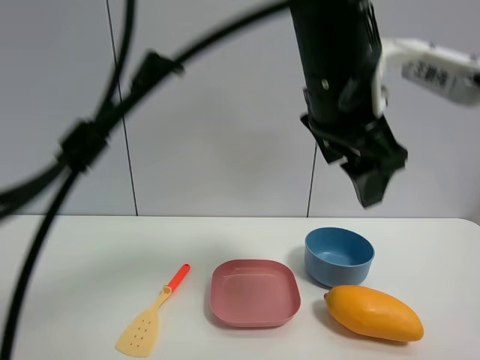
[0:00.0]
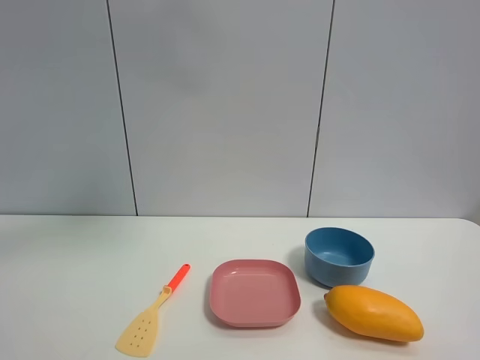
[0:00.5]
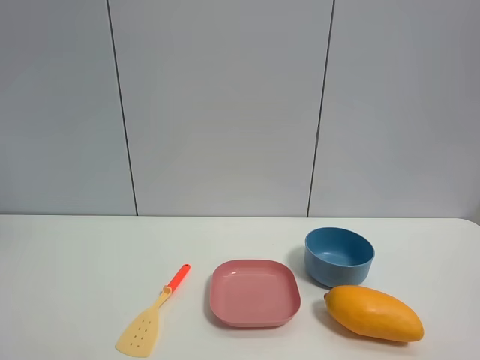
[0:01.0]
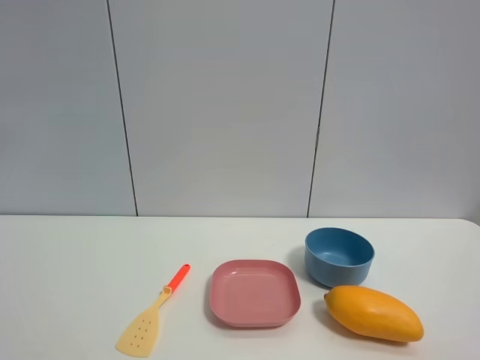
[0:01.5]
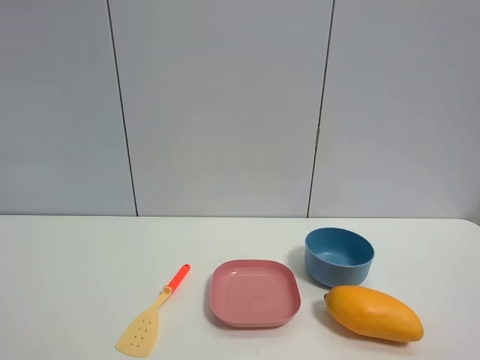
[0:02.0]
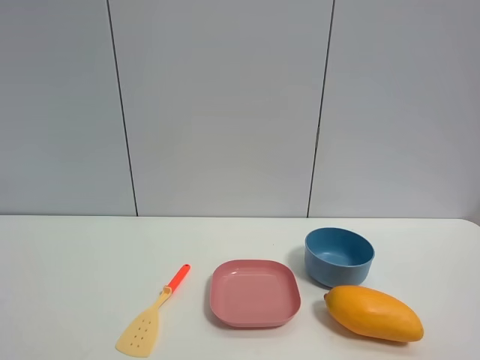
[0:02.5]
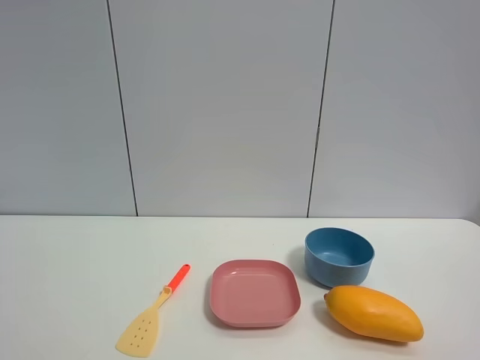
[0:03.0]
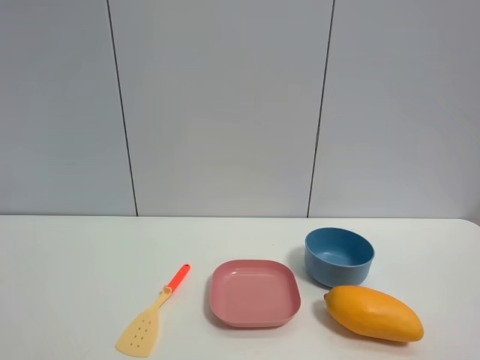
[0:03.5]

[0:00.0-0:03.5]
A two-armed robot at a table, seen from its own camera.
Task of the whole recording: the gripper move the object.
0:00.0 to 0:02.0: The left gripper goes approximately 50 cm to the left and backward.

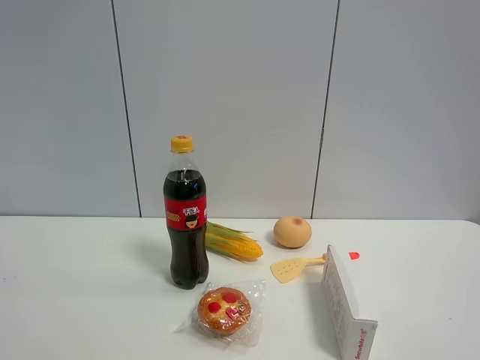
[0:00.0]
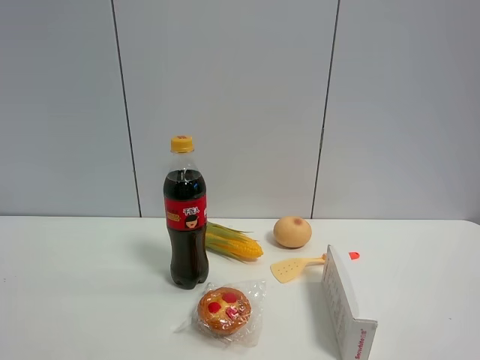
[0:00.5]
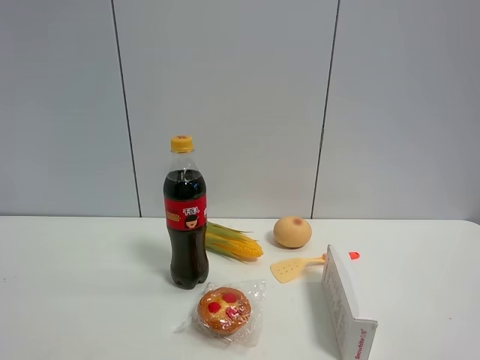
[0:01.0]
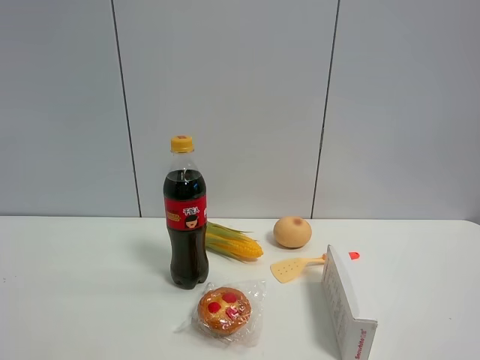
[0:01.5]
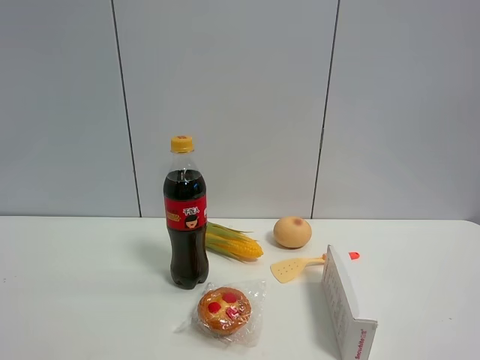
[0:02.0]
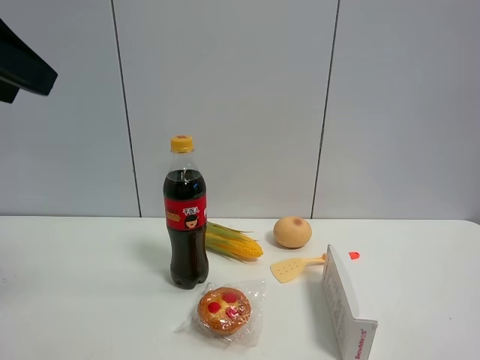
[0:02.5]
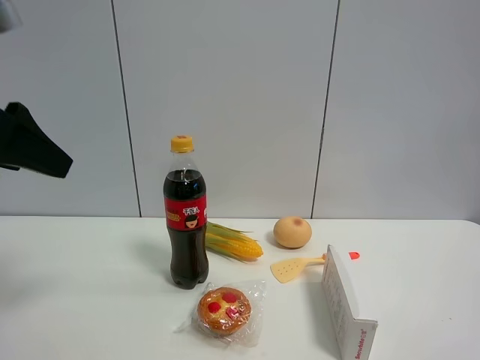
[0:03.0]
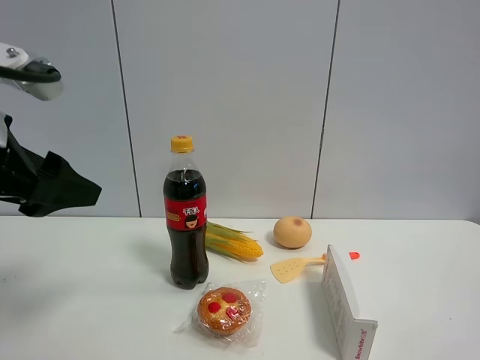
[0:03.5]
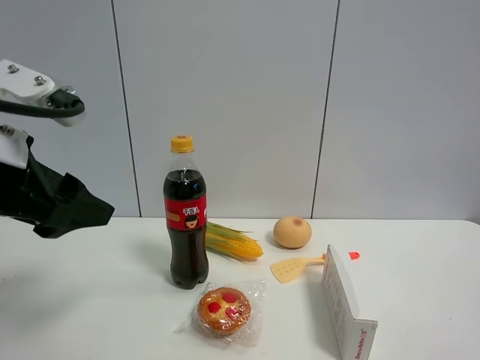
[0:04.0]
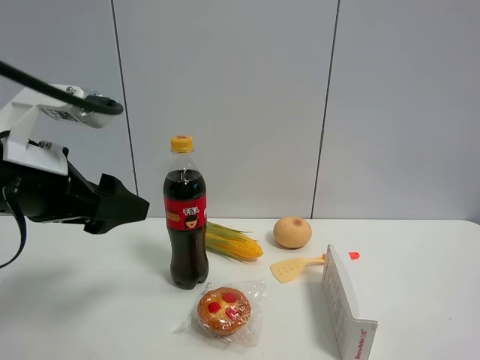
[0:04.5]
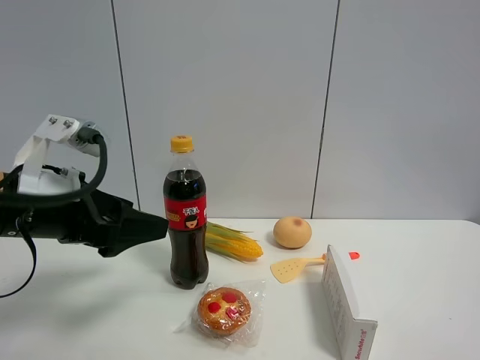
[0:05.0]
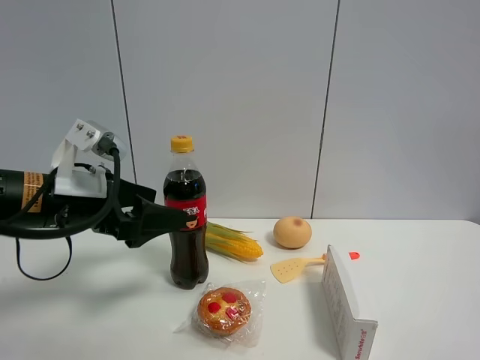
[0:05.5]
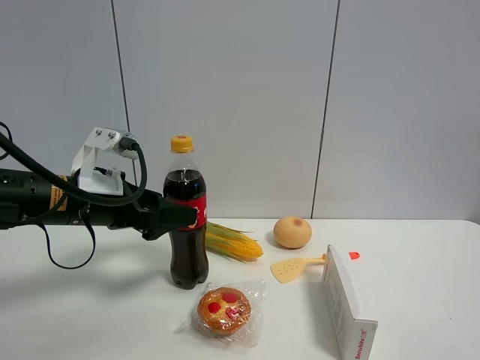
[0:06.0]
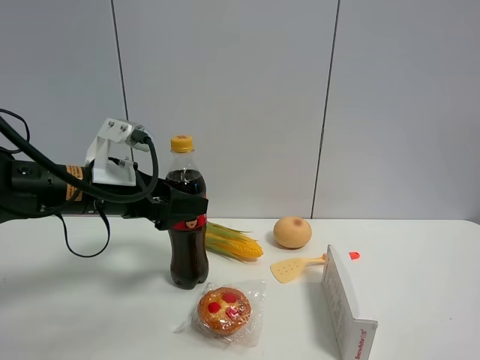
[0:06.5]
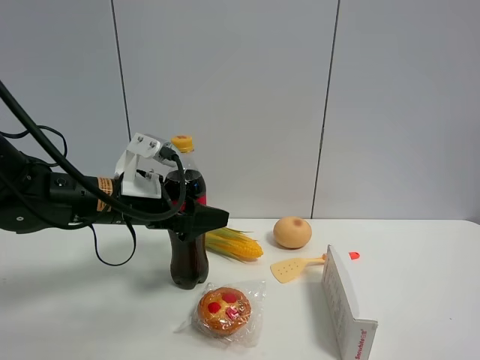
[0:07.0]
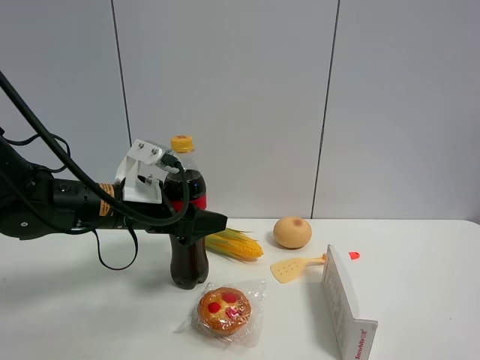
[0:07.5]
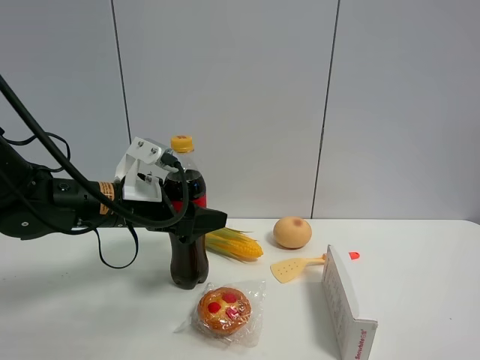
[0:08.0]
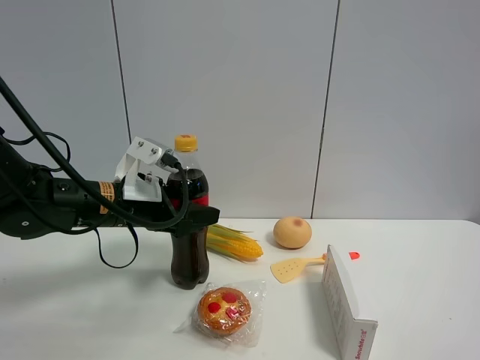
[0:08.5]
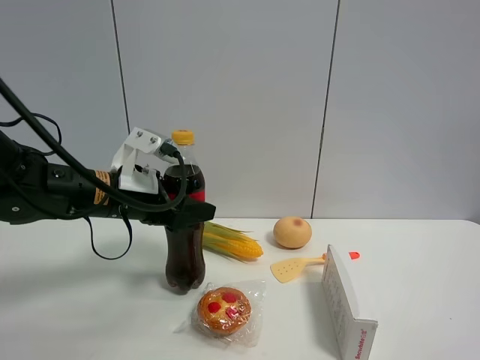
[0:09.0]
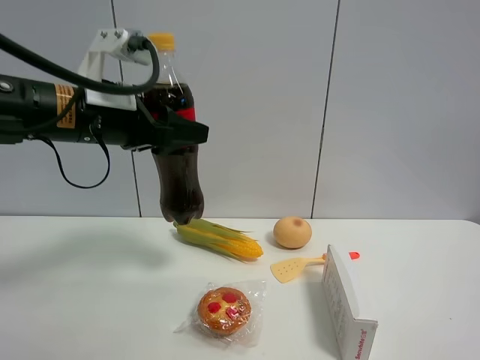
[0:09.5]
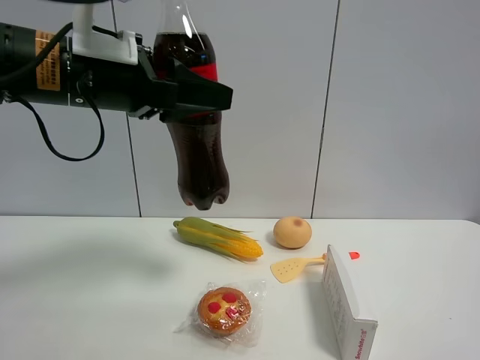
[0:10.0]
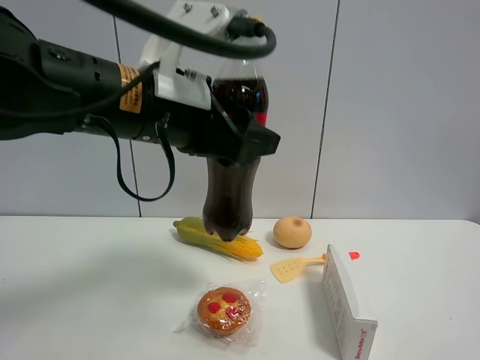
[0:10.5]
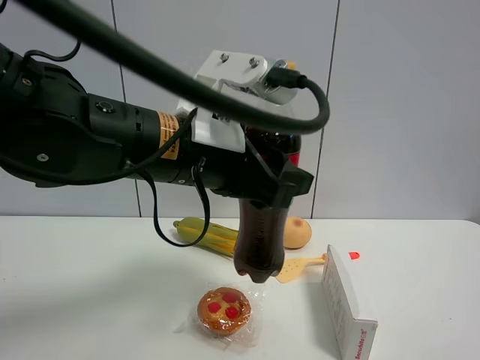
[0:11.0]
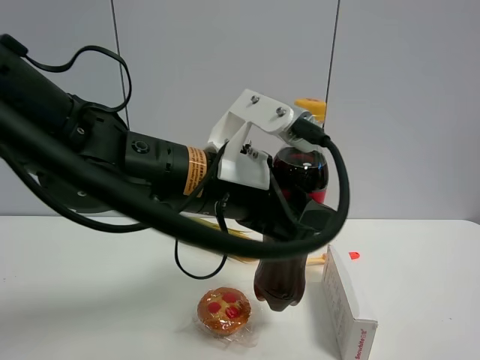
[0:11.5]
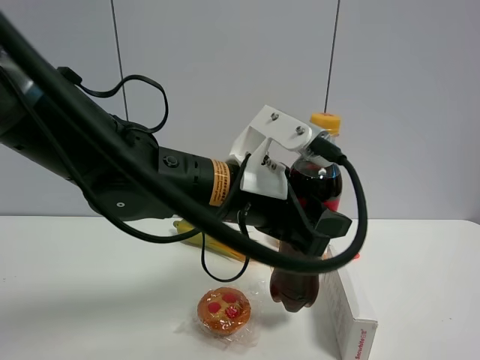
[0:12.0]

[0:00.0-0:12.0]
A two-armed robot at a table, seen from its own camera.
Task of the whole recording: the gripper move the object.
Step, 0:00.0 to 0:08.0: Grasp the coke with the left gripper.
0:02.0 to 0:04.0: The left gripper moves downward and forward, approximately 20 cm.
0:04.0 to 0:06.0: The left gripper goes about 15 cm forward and downward, and opens up.
0:06.0 to 0:08.0: The left gripper moves roughly 5 cm.
0:08.0 to 0:10.0: The left gripper shifts some 20 cm upward and backward, and closes.
0:10.0 to 0:12.0: The left gripper moves to the right and downward, approximately 15 cm.

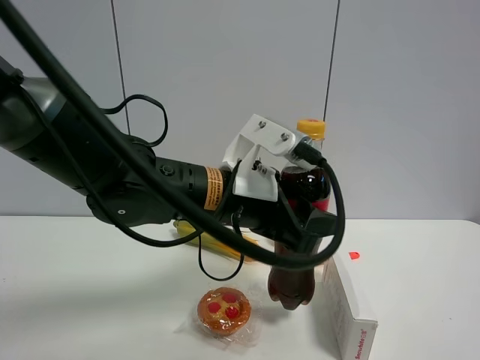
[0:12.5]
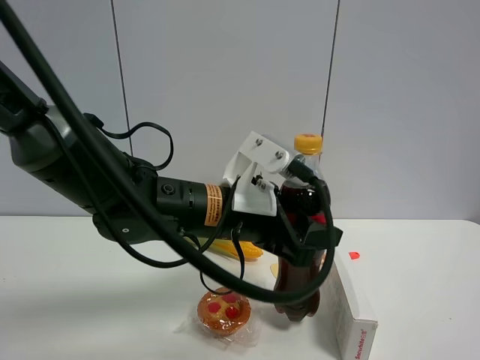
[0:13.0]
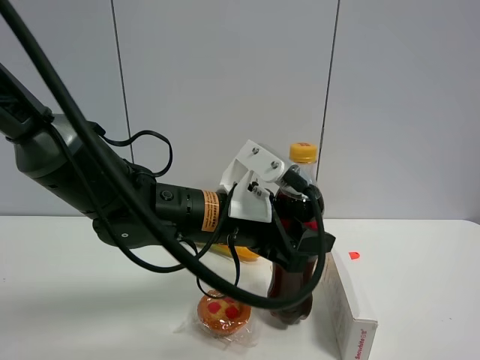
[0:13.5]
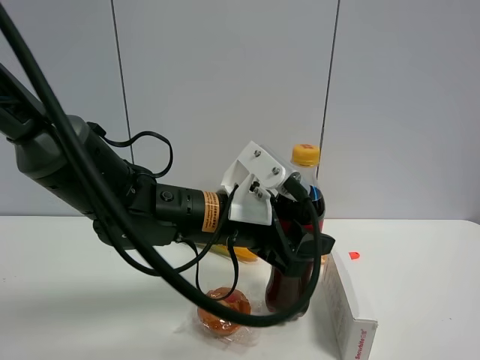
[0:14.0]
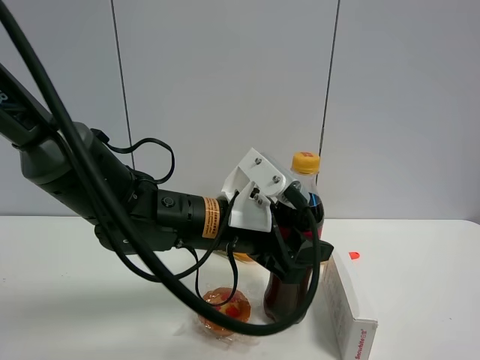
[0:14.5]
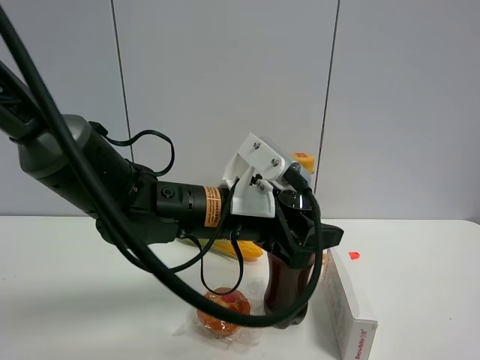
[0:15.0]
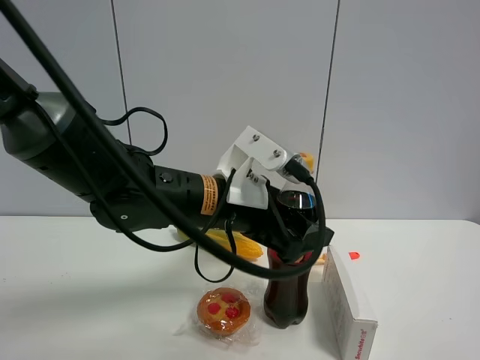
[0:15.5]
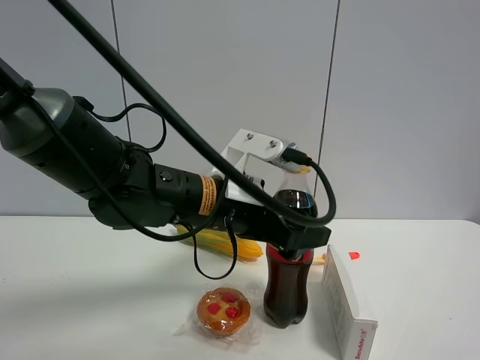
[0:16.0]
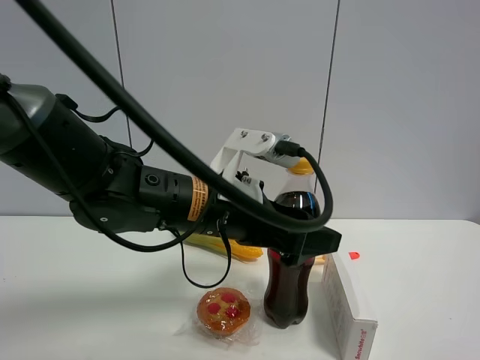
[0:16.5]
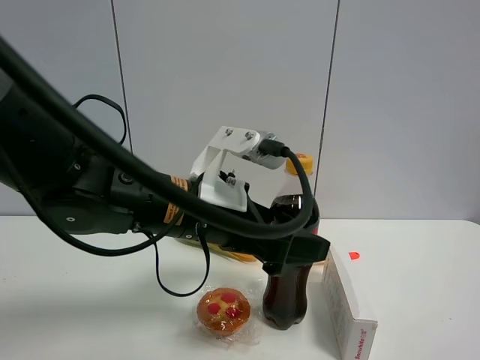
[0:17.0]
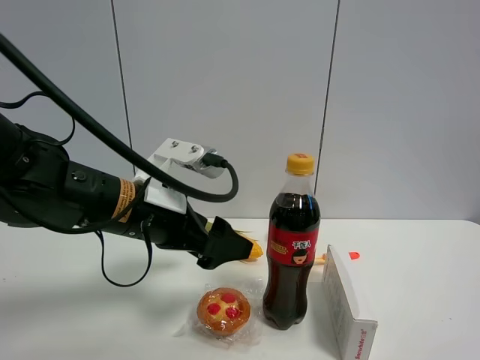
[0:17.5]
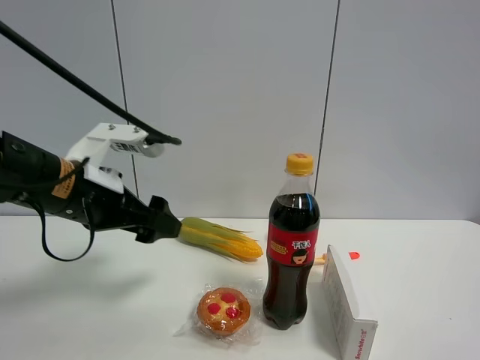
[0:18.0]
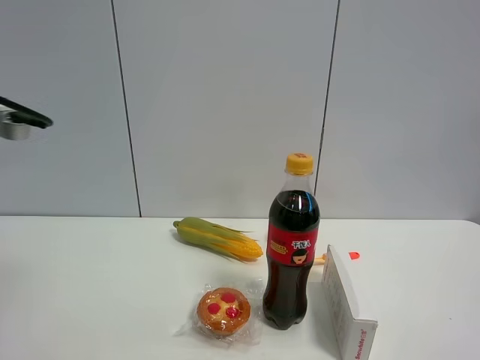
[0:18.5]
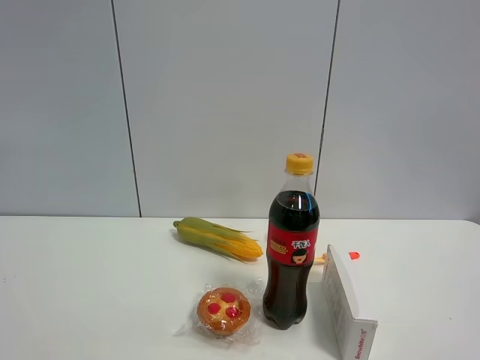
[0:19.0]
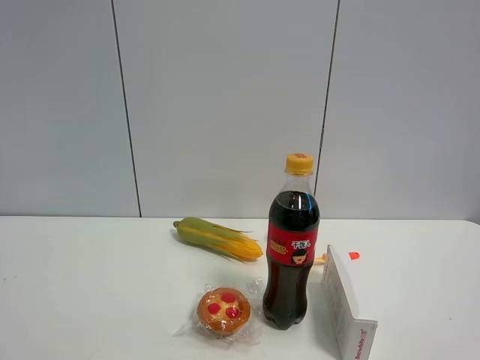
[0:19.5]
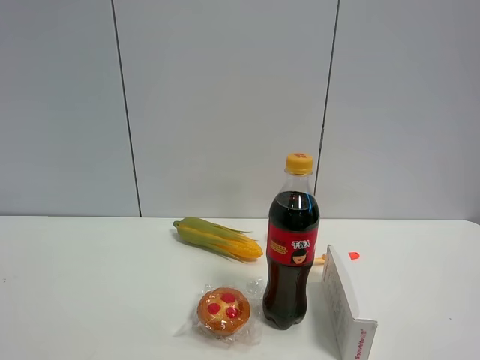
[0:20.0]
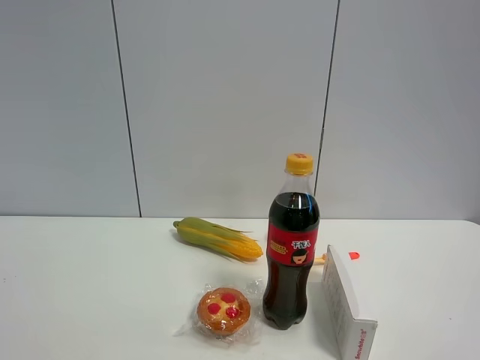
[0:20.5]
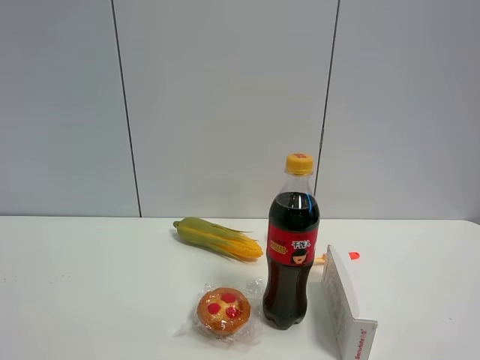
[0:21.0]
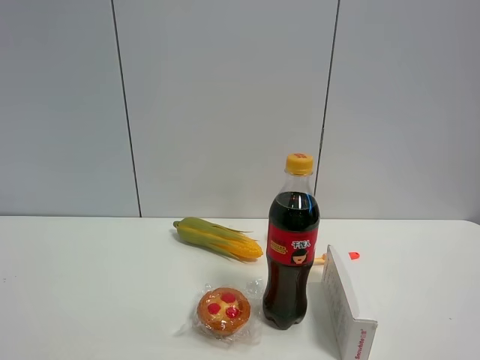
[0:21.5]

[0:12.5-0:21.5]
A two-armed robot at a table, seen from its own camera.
Task of the whole recording: the gripper move the object.
Step, 0:12.5 to 0:17.0: Place the coke on the table with the left gripper.
0:12.5 to 0:14.5: The grippers make only small movements.
0:14.5 to 0:17.0: The left gripper ends up some 5 cm from where it was, and opens its fingers.
0:17.0 to 0:19.5: The left gripper goes about 35 cm to the left, backward and upward.

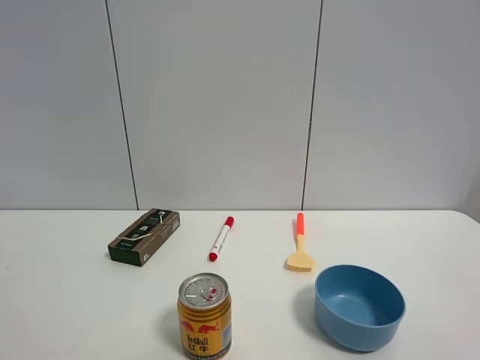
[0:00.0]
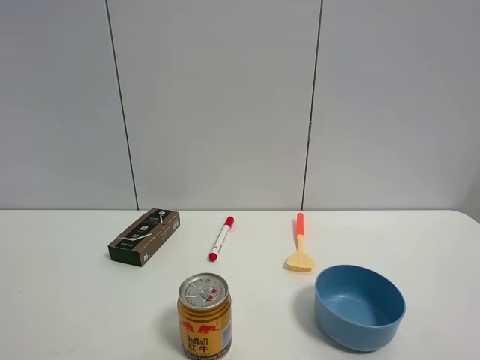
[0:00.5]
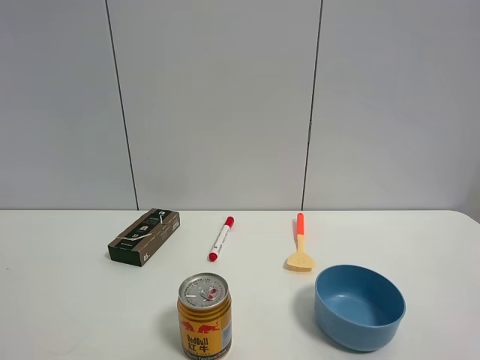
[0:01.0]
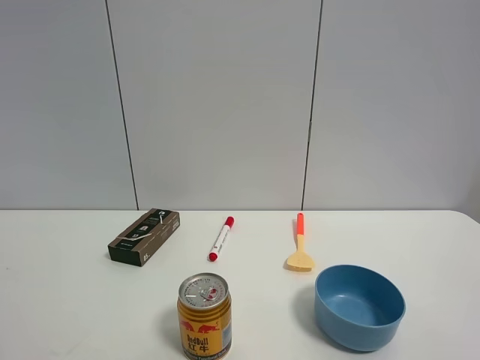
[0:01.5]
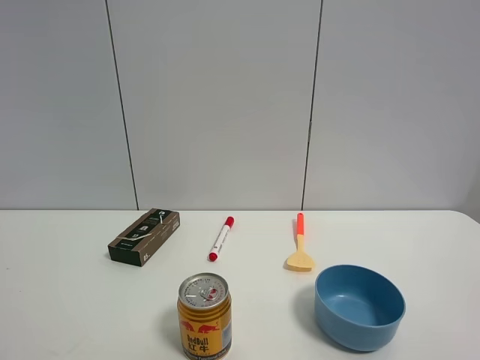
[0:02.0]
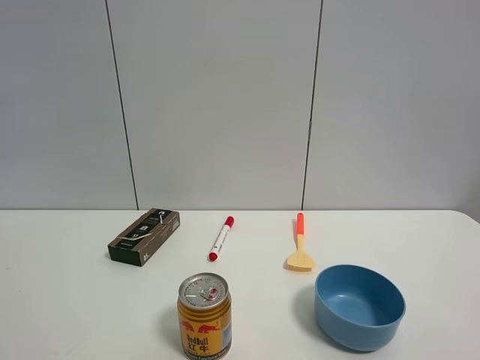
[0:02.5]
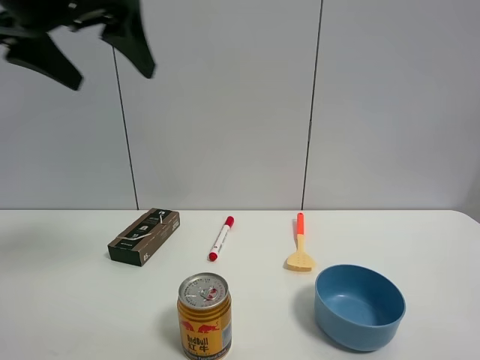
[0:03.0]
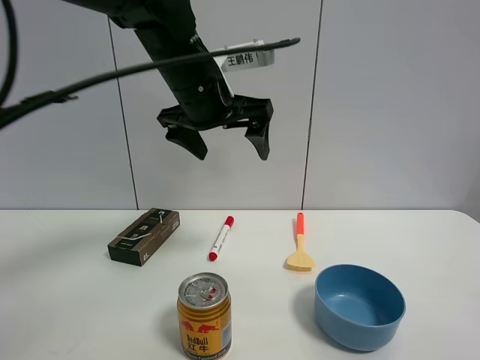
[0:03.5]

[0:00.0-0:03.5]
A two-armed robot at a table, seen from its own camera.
Task of the whole recording: the gripper move the object.
0:02.0 to 0:03.5: The left gripper goes roughly 50 cm forward and to the right.
